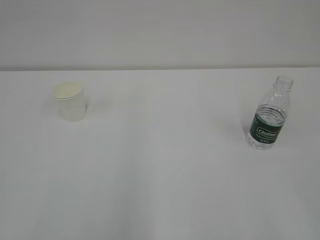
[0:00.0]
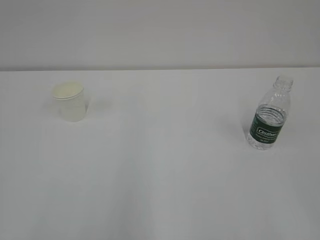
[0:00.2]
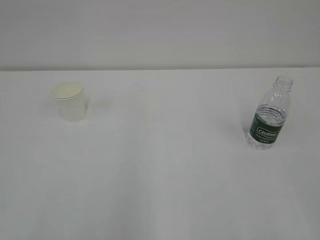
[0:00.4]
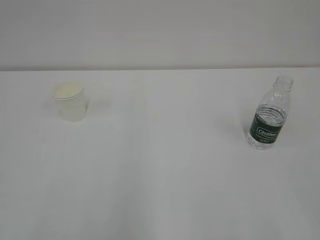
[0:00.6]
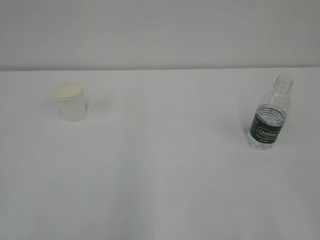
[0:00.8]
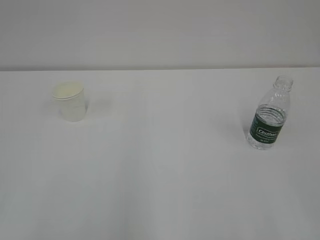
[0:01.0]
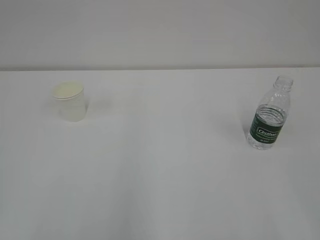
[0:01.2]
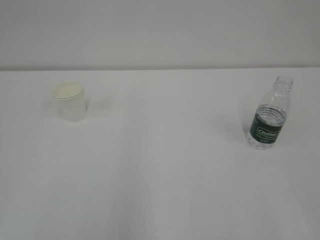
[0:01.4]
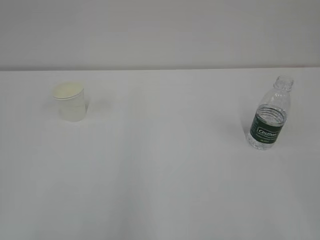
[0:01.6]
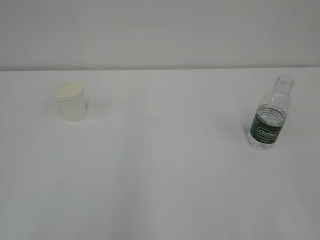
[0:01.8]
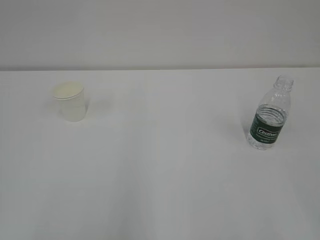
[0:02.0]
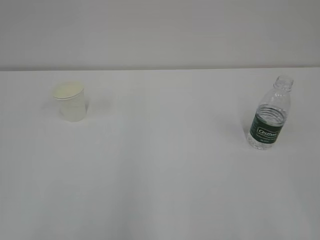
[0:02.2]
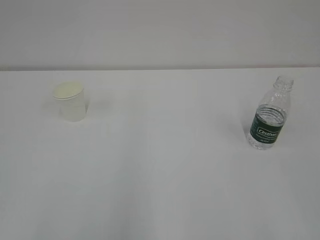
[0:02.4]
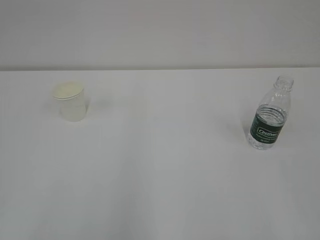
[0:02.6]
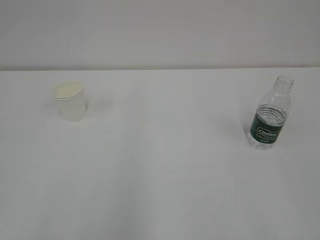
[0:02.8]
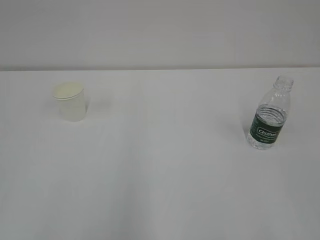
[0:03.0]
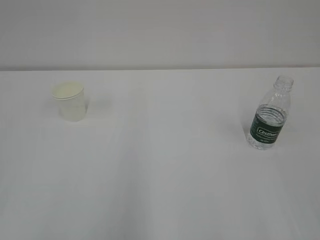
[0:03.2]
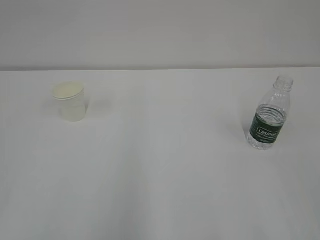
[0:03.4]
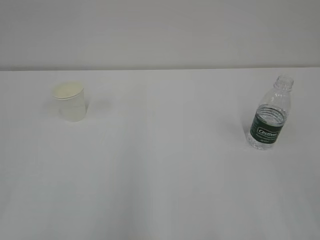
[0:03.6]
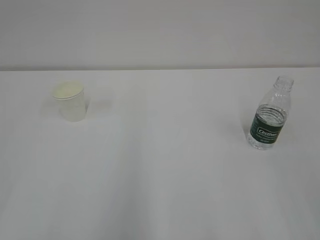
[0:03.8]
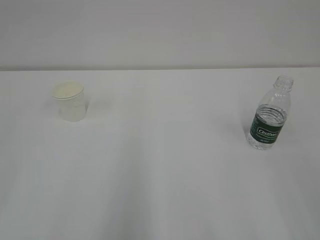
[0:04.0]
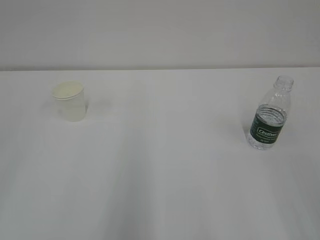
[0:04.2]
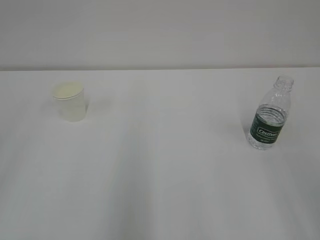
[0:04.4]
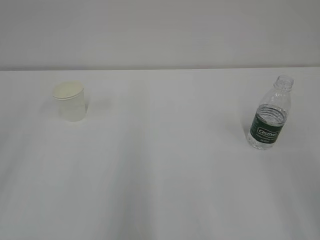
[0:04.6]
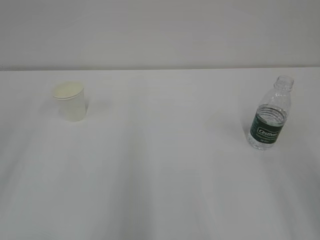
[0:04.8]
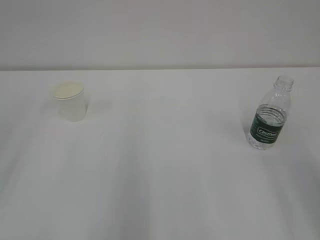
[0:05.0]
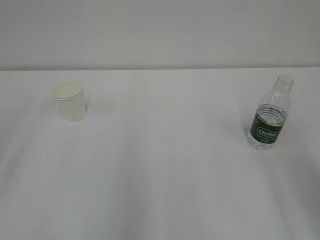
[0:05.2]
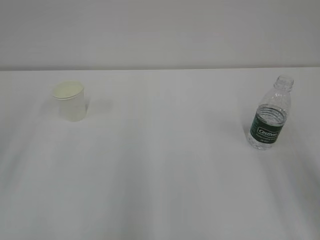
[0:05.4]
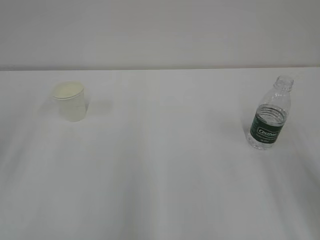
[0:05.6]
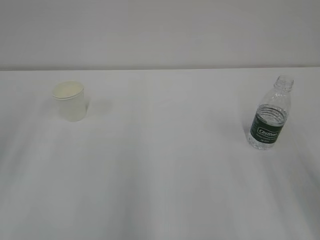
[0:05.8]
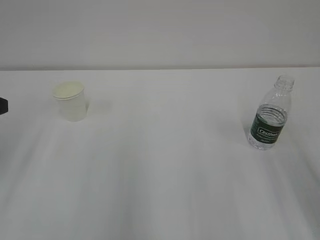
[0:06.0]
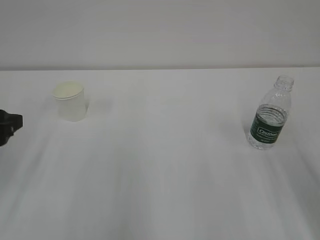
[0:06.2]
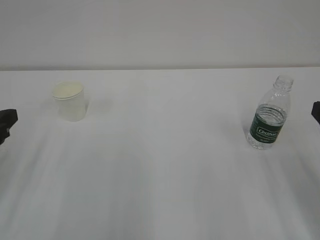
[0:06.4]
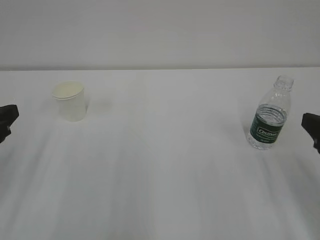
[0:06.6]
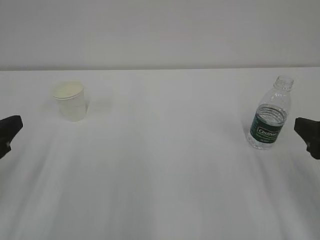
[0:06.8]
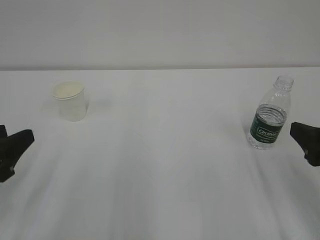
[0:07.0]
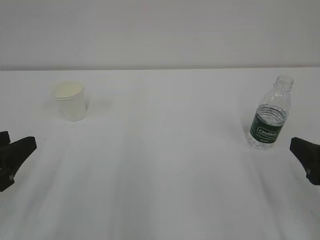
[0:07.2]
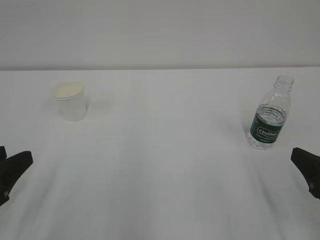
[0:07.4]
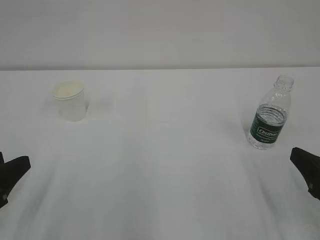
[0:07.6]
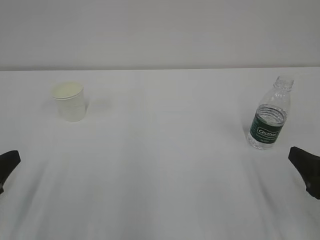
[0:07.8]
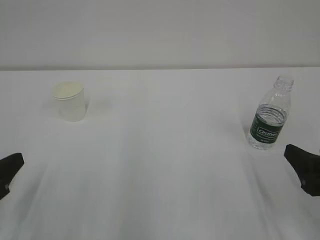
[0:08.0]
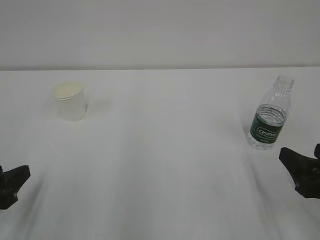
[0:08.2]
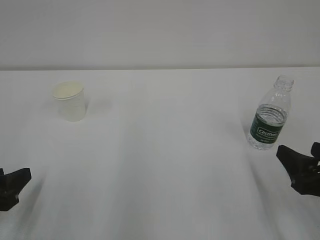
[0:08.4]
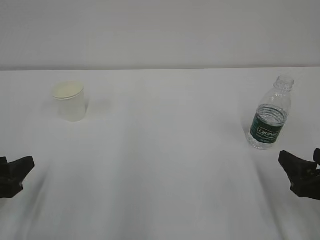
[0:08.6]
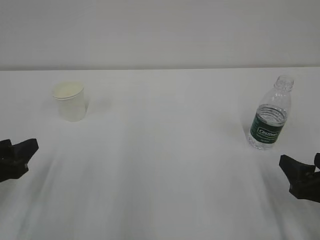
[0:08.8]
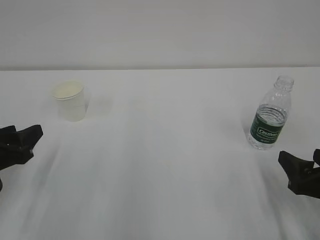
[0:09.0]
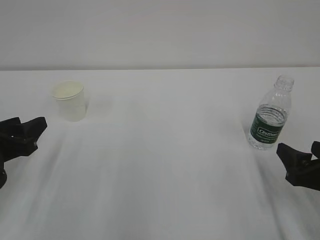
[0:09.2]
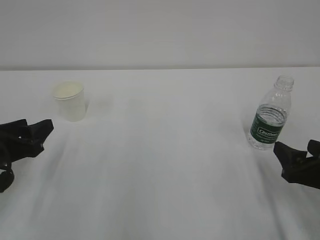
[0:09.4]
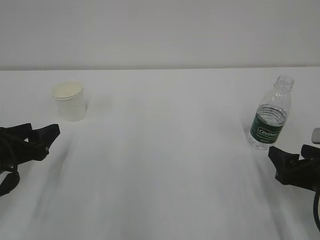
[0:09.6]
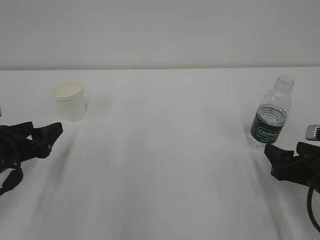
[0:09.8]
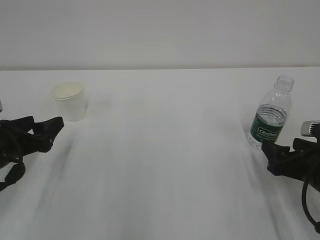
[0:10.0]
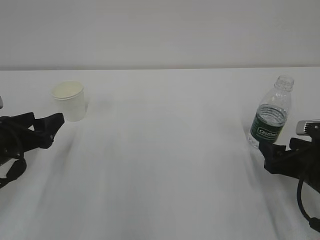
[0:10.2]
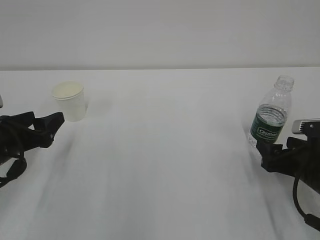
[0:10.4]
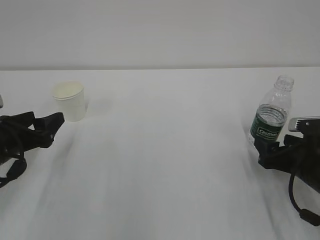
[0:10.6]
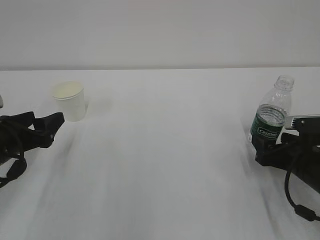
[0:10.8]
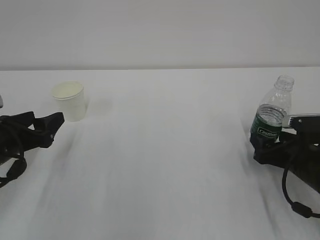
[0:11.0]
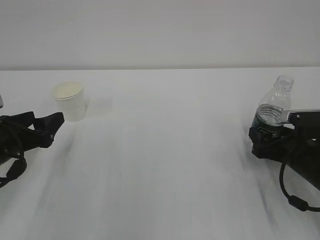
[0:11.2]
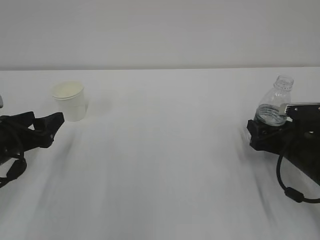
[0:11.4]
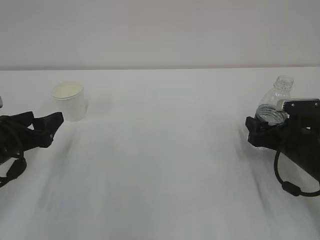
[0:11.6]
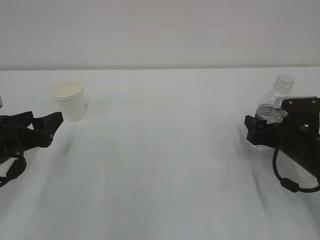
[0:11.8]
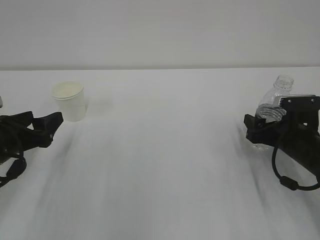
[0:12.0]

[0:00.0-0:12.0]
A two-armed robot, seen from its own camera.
0:06.0 to 0:07.6: The right gripper heads downward, covering roughly 10 cm; the left gripper is displaced backward and downward by about 15 cm, and closes its fingers.
0:07.6 to 0:09.0: The left gripper is displaced forward by about 5 cm, while the right gripper shifts by roughly 5 cm.
0:09.0 to 0:10.4: The left gripper opens up. The right gripper shifts approximately 5 cm forward.
0:10.4 to 0:12.0: The right gripper heads forward, covering some 5 cm.

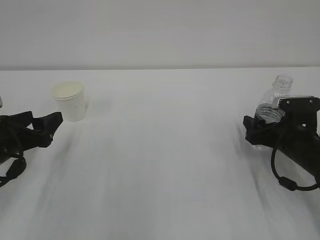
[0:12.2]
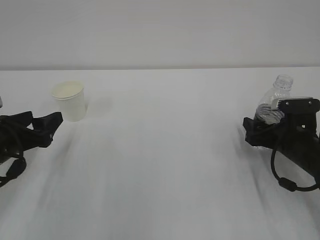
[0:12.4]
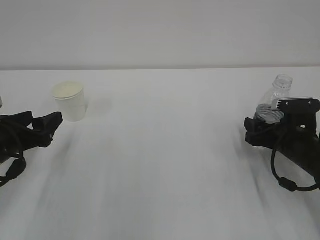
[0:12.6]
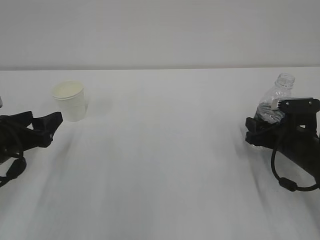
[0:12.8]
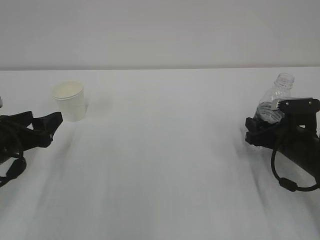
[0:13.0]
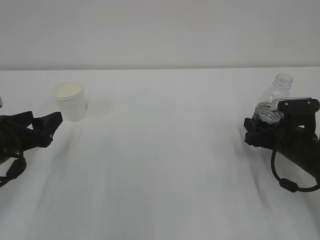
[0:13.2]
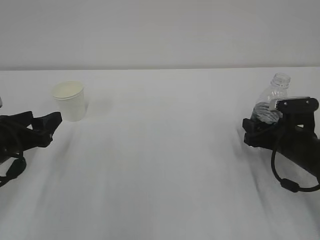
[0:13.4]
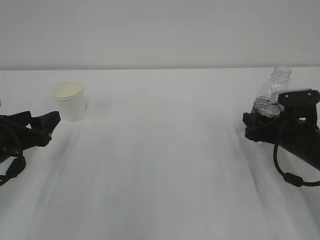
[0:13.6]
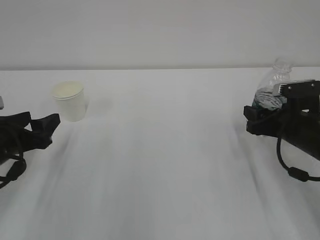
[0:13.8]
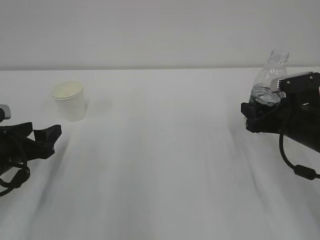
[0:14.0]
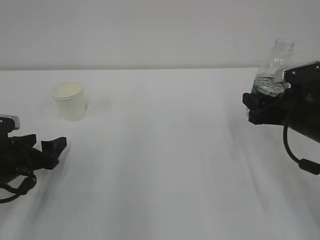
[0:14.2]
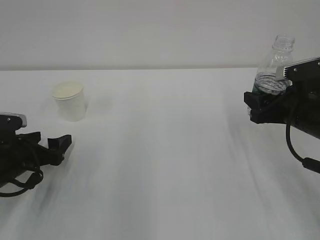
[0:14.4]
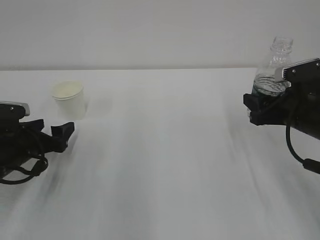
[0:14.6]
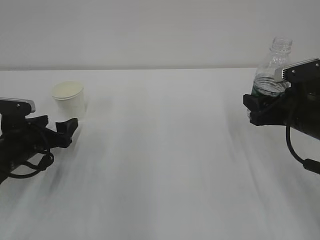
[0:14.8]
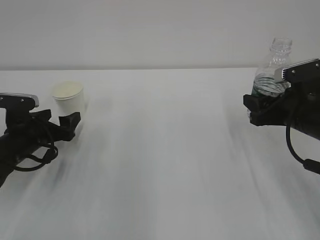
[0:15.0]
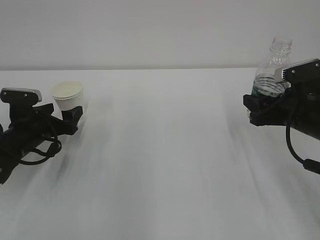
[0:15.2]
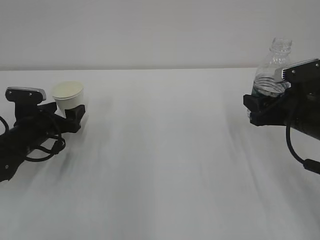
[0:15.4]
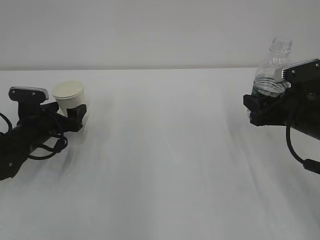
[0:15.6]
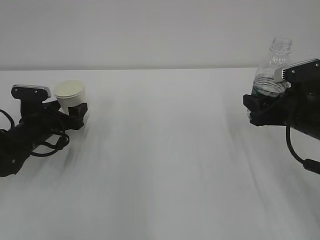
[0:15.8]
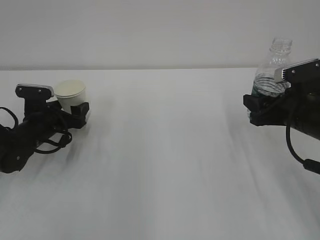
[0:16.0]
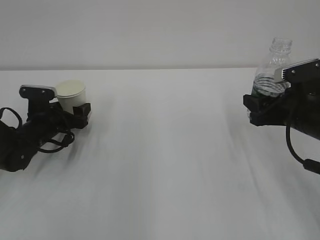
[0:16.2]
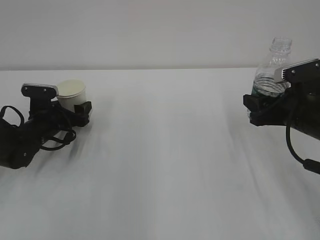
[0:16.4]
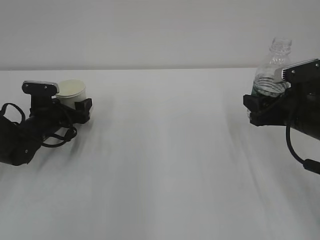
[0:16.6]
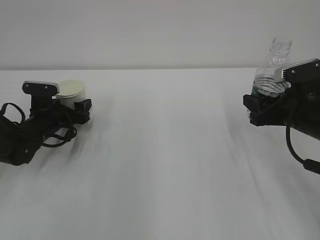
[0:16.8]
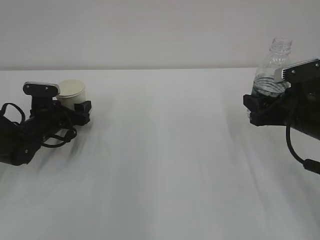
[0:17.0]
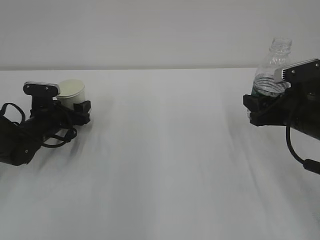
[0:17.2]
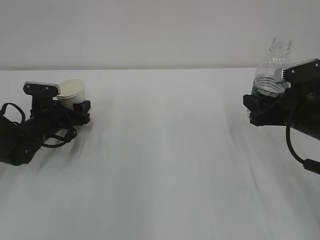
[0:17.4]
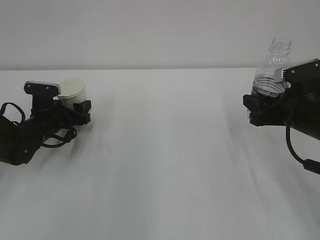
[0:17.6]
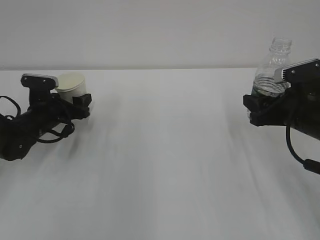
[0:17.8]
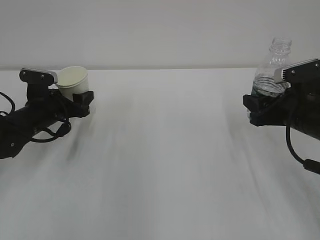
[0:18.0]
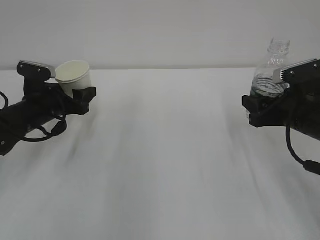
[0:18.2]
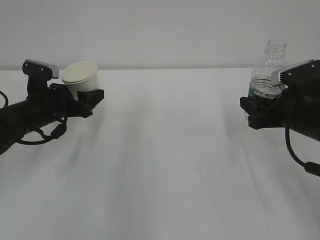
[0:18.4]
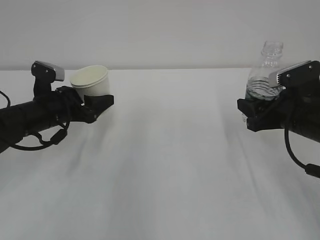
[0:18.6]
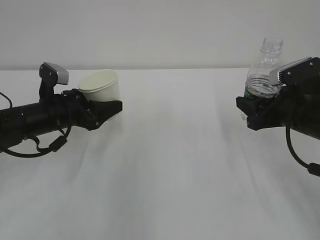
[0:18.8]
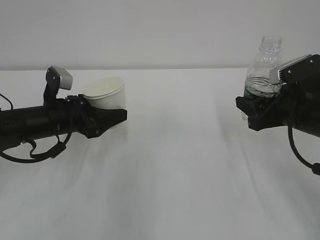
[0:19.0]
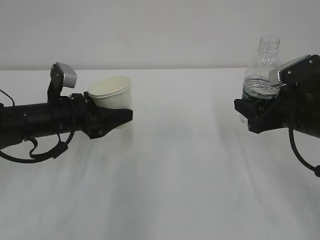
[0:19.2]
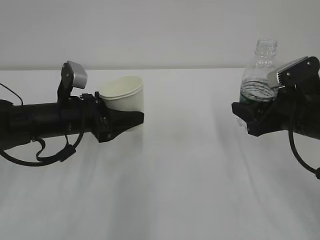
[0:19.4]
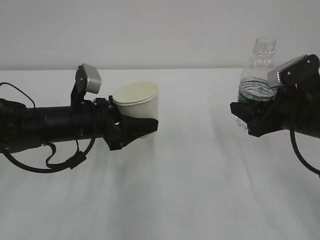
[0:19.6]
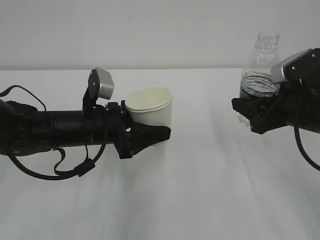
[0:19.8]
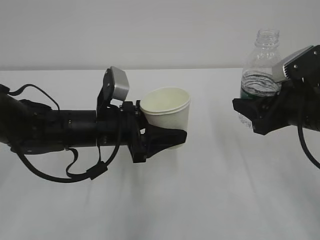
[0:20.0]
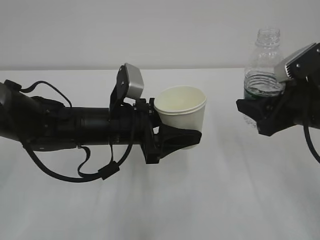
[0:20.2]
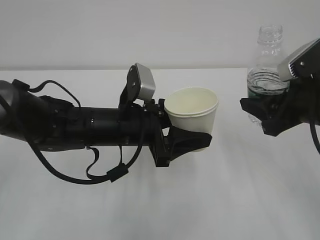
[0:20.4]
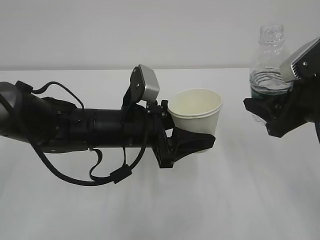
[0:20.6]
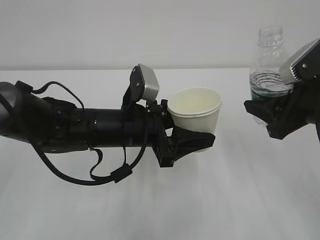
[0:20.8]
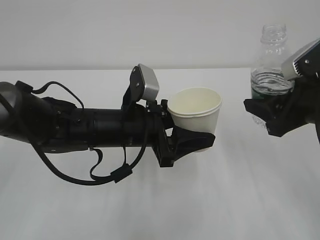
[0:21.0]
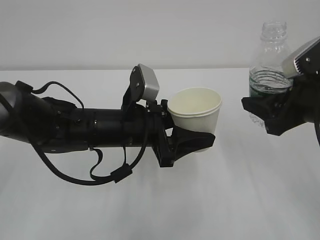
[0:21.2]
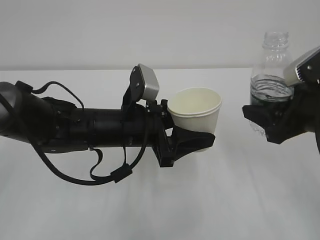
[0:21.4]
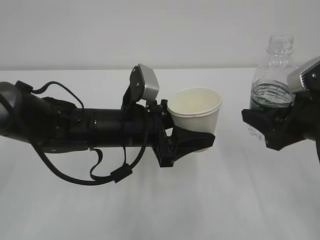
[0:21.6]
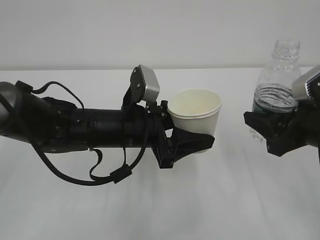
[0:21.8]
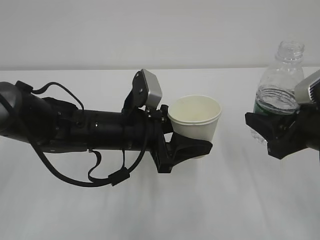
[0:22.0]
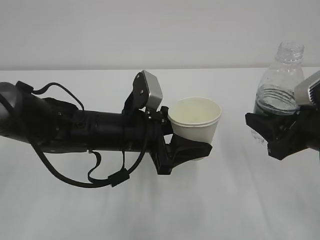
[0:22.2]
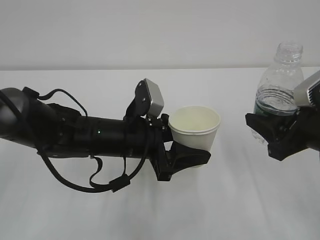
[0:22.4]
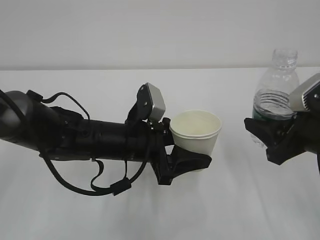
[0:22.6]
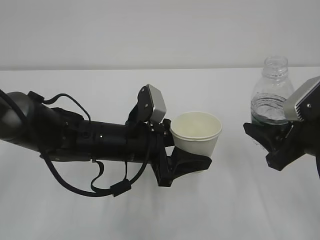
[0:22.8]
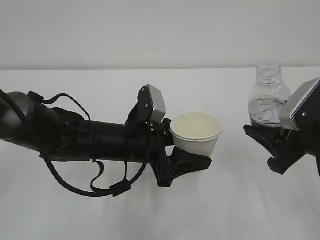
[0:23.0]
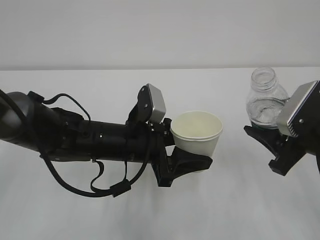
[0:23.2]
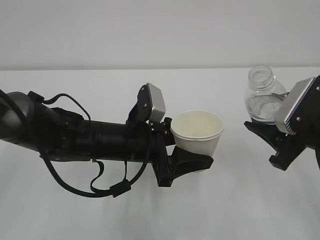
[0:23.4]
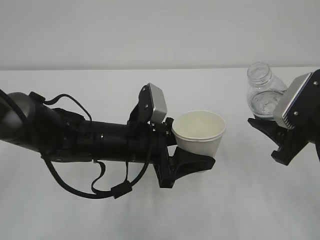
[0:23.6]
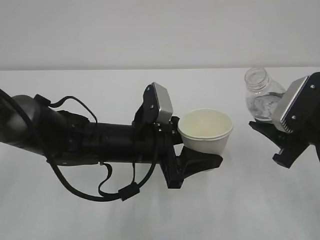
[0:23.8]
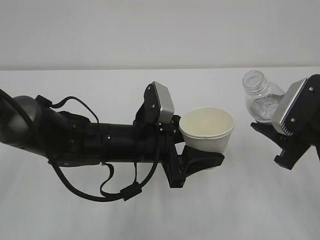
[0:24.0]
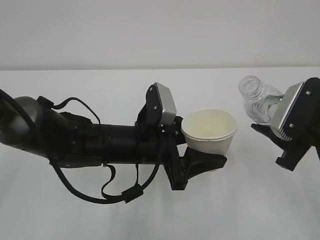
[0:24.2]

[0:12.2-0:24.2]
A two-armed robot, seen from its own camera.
0:12.2 to 0:13.8: The right gripper closes up.
0:13.8 to 0:15.2: The left gripper is displaced forward and downward by approximately 10 cm, and opens.
0:15.2 to 0:16.6: The left gripper heads forward, covering some 5 cm.
0:16.6 to 0:18.2: The left gripper is displaced upward by roughly 5 cm, and closes up.
0:18.2 to 0:19.8: The left gripper travels to the right and backward by approximately 15 cm.
0:19.8 to 0:21.2: The left gripper moves to the right, about 5 cm.
